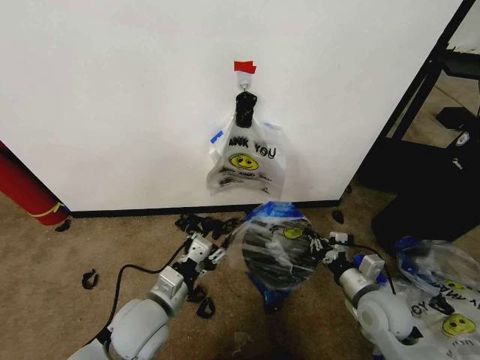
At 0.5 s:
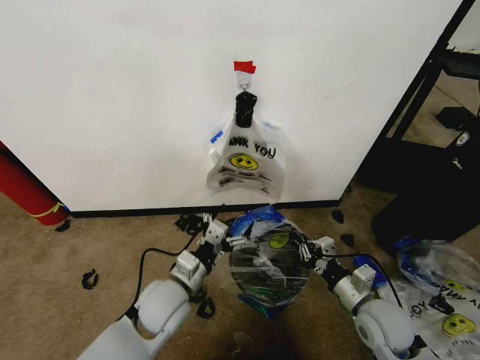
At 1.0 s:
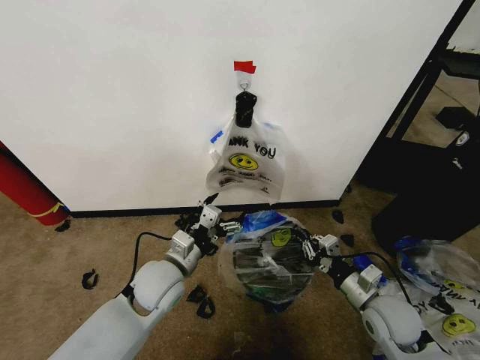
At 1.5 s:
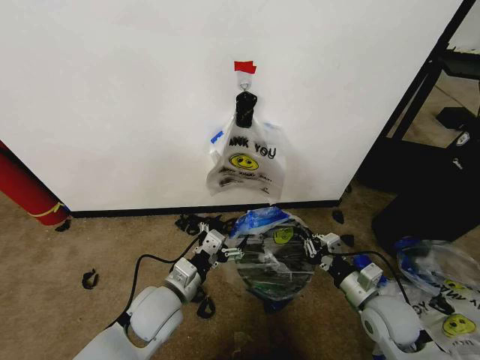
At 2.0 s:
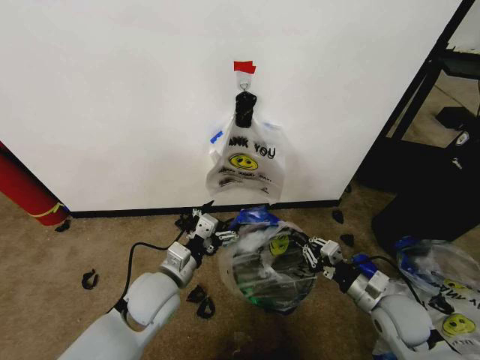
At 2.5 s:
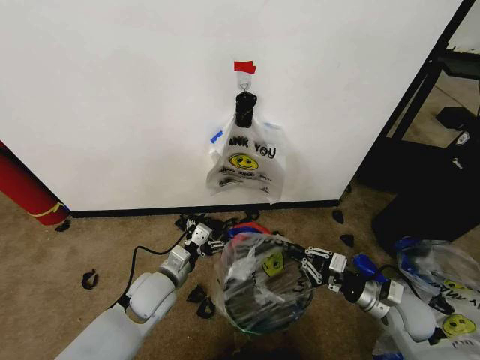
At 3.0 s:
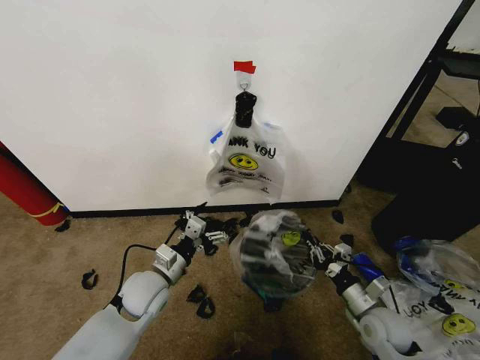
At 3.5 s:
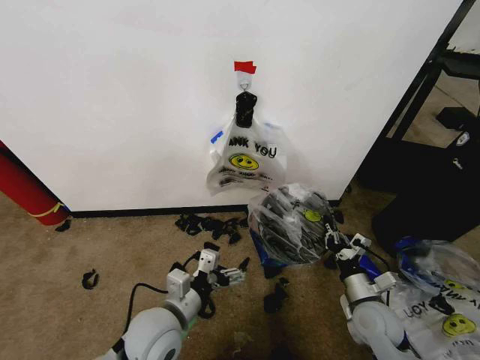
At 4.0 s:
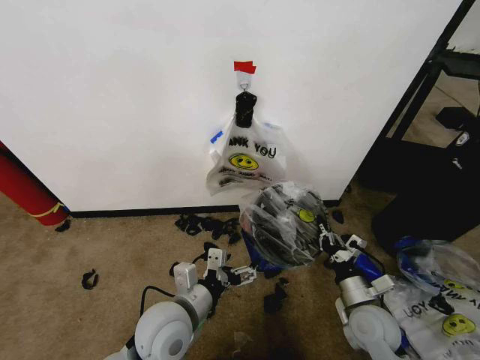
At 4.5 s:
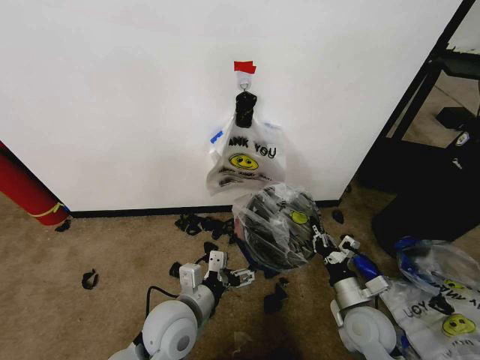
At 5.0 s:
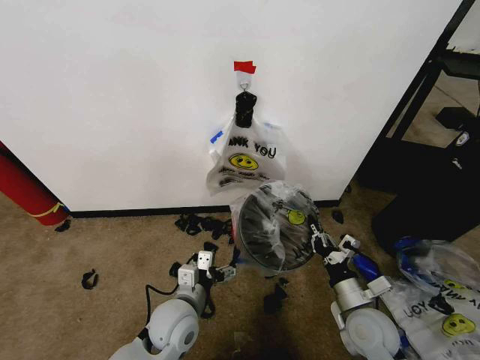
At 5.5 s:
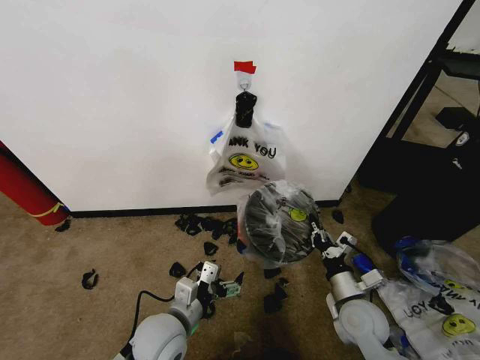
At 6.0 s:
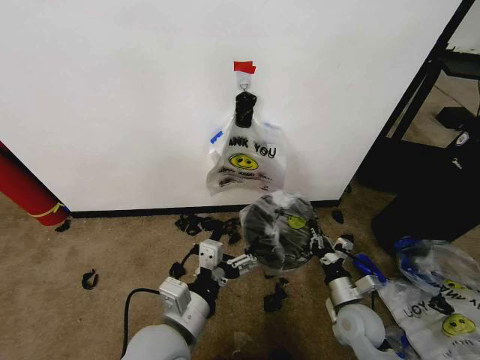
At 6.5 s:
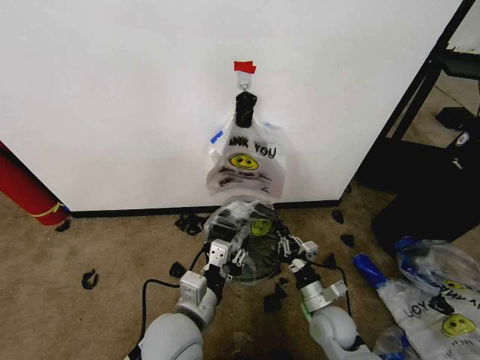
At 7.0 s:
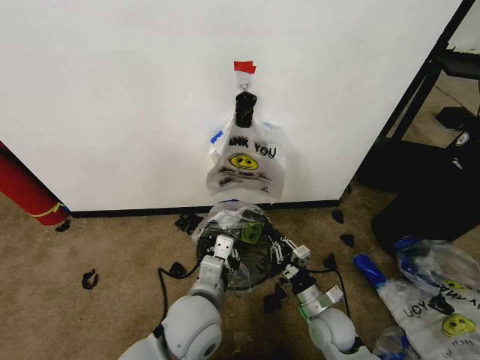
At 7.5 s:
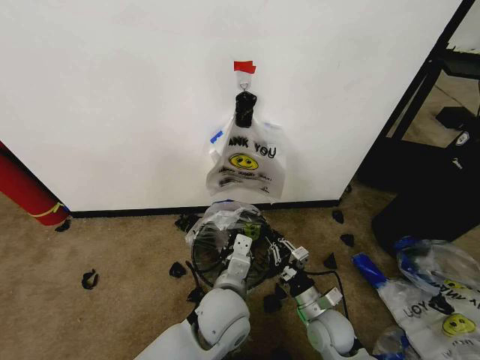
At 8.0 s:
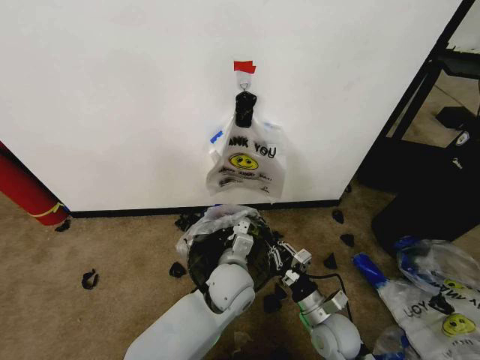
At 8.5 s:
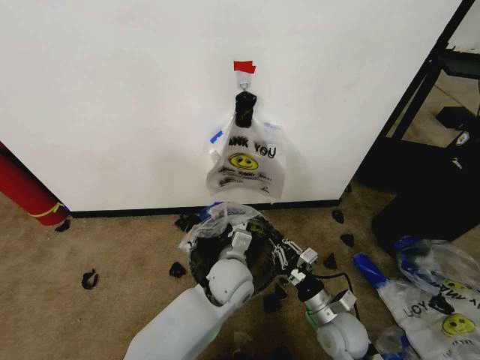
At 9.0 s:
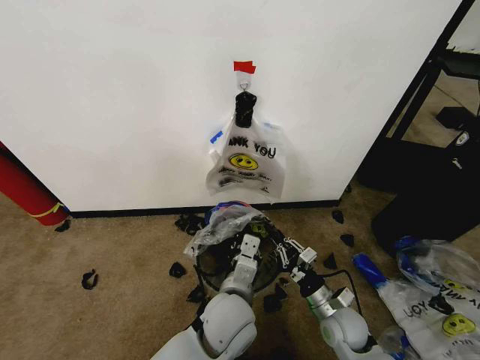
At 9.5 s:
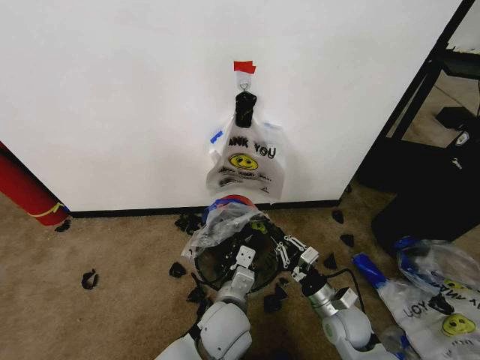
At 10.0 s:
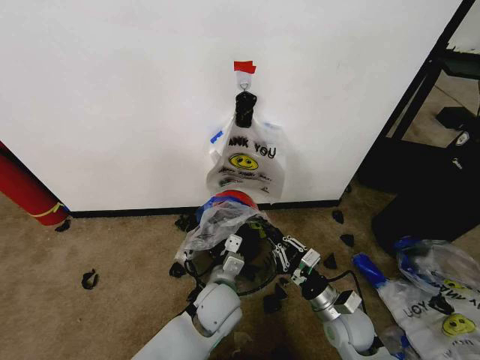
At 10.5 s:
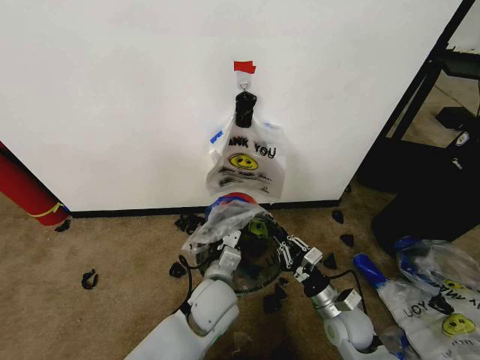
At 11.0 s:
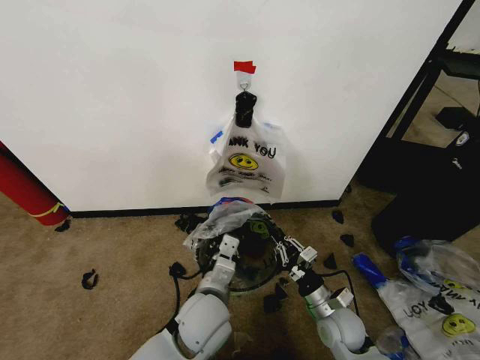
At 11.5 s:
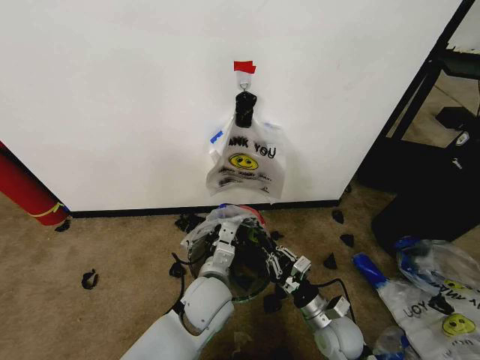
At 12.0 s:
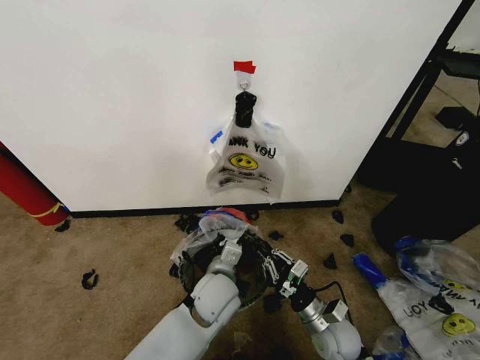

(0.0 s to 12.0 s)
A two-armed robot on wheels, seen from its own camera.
Task of the whole recording: Pick up the garbage bag from the wall and place it over the trash bin.
0.0 s - 2.0 s: The left gripper travels forward by about 5 cm, and opens up.
2.0 s - 4.0 s: The right gripper ends up about 5 cm from where it was. Meanwhile the left gripper goes approximately 5 cm backward.
4.0 s - 6.0 s: The left gripper ends up roughly 5 cm from where it was.
6.0 s - 8.0 s: The right gripper shifts approximately 5 cm to the left. Meanwhile the left gripper shifts about 20 cm forward, to the right and downward, and closes up.
8.0 s - 10.0 s: The left gripper moves roughly 5 cm backward and comes back.

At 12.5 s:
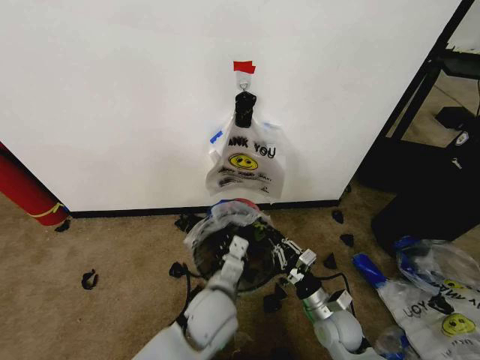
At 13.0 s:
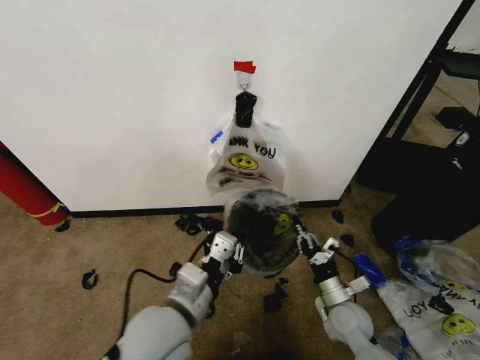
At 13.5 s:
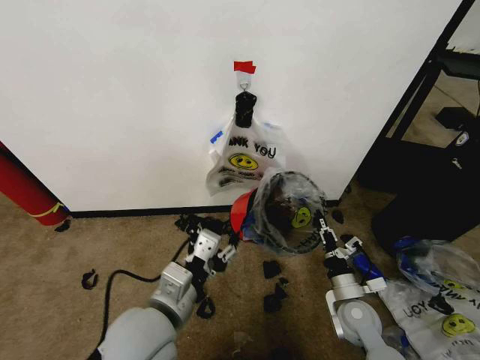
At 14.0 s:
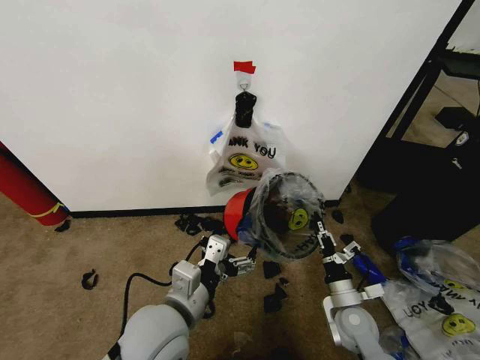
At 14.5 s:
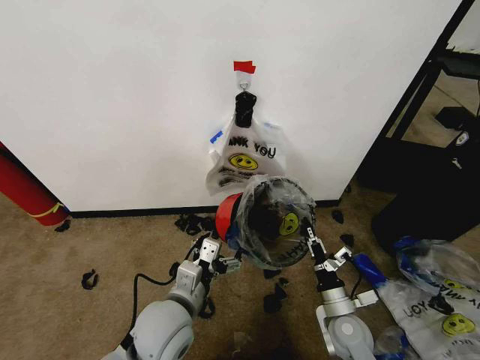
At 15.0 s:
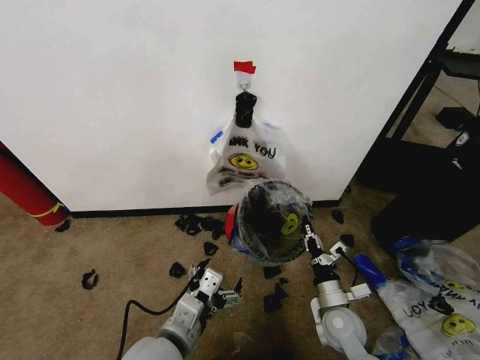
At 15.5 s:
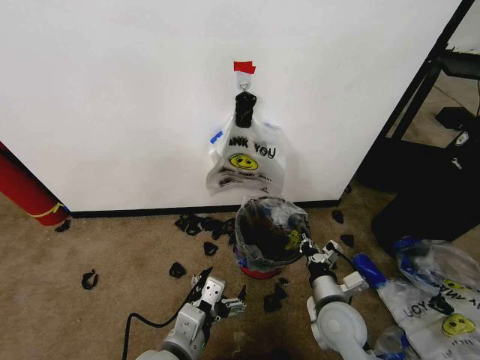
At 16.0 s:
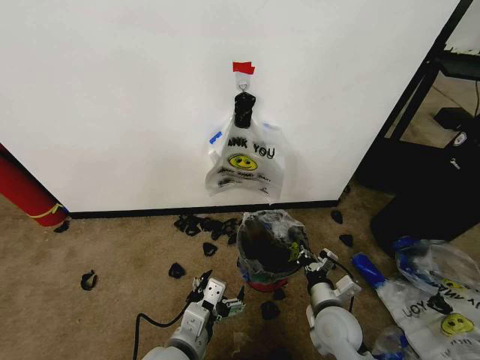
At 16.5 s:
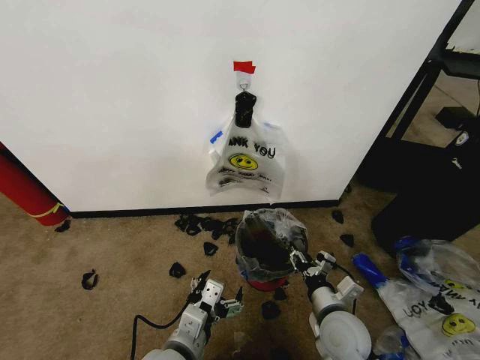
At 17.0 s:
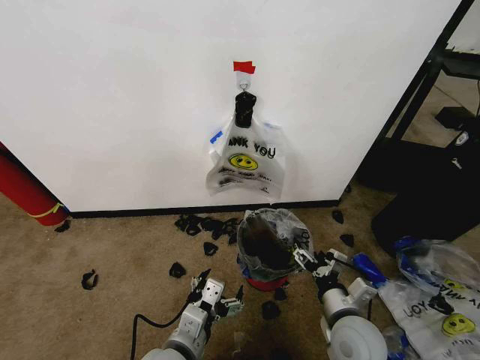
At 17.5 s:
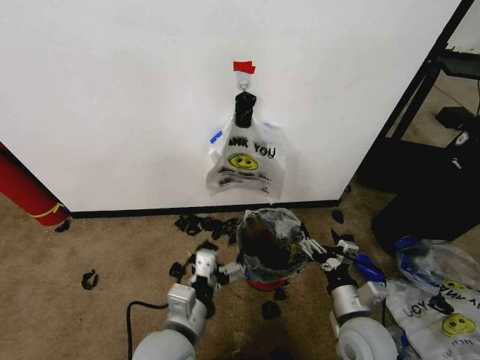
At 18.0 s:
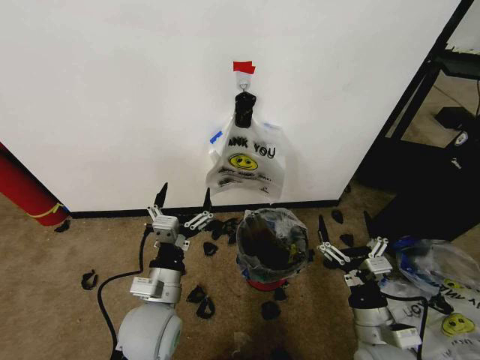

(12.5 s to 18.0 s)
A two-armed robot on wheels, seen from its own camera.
Task of the whole recording: Pick up the garbage bag from the wall and place it over the trash bin.
12.5 s - 14.5 s: The left gripper heads to the left, covering about 10 cm, and opens.
14.5 s - 16.0 s: The left gripper goes some 5 cm backward.
16.0 s - 18.0 s: The right gripper goes about 10 cm backward, to the right and upward, and opens. The left gripper heads forward, covering some 5 cm.

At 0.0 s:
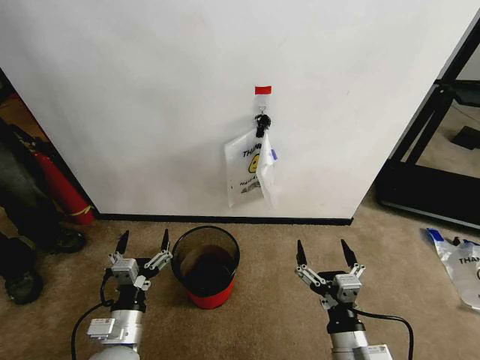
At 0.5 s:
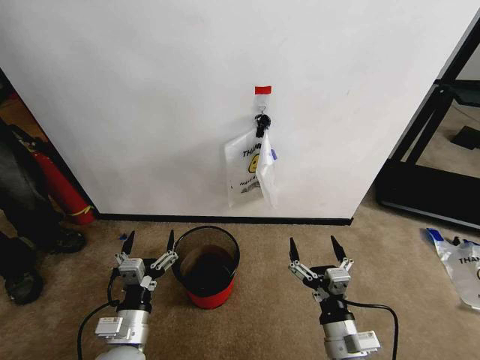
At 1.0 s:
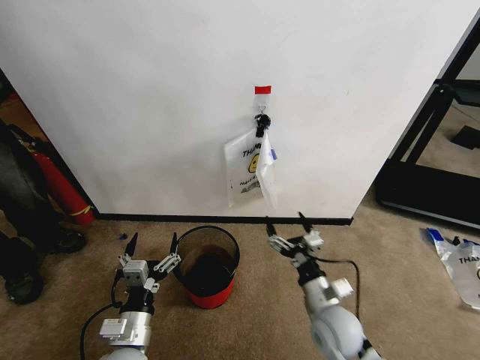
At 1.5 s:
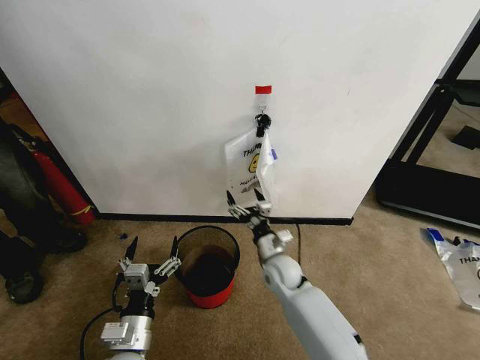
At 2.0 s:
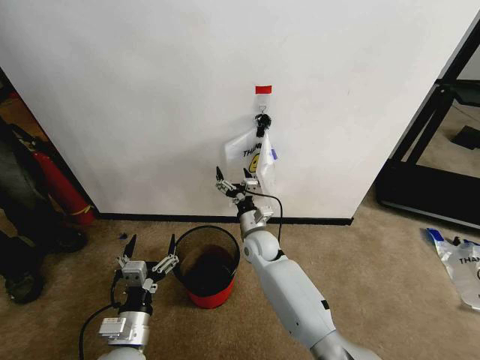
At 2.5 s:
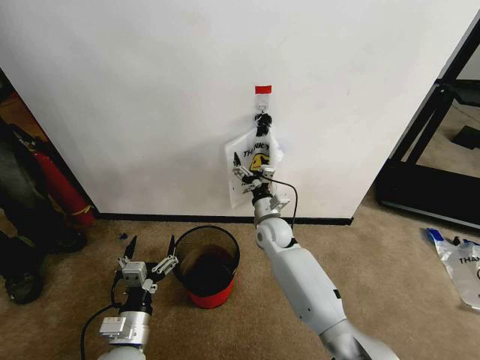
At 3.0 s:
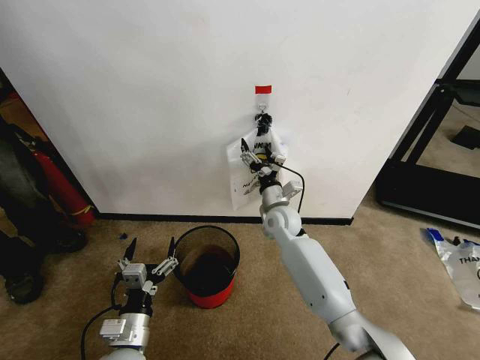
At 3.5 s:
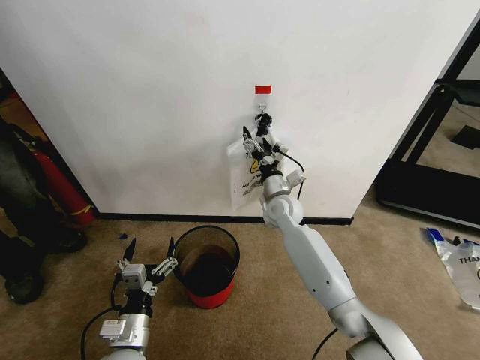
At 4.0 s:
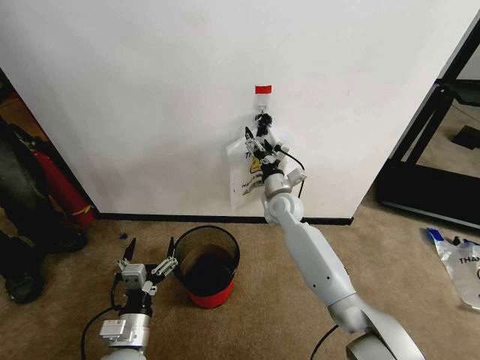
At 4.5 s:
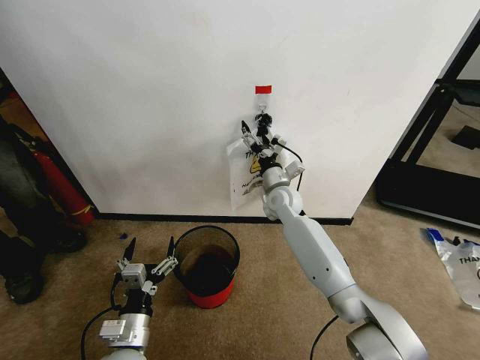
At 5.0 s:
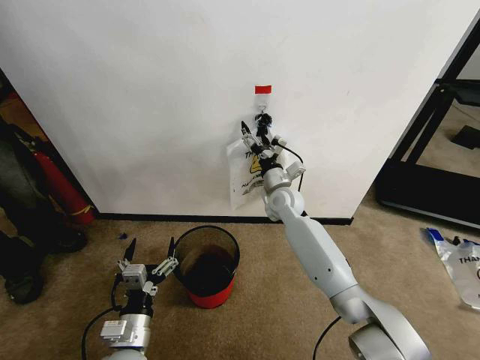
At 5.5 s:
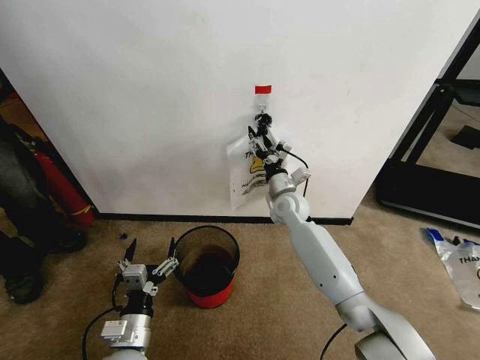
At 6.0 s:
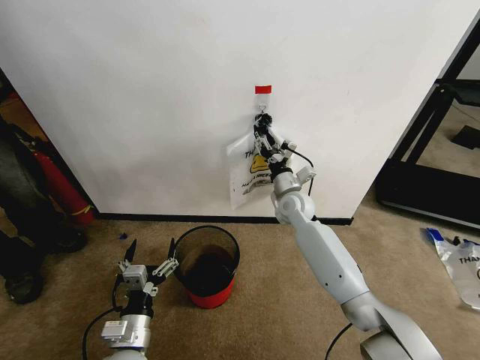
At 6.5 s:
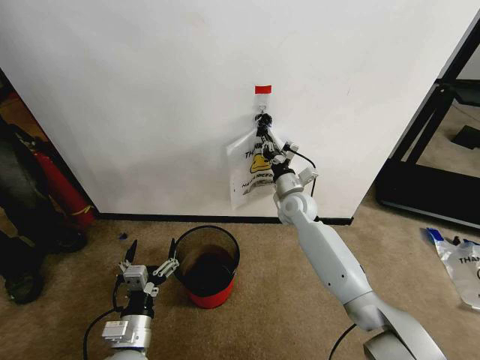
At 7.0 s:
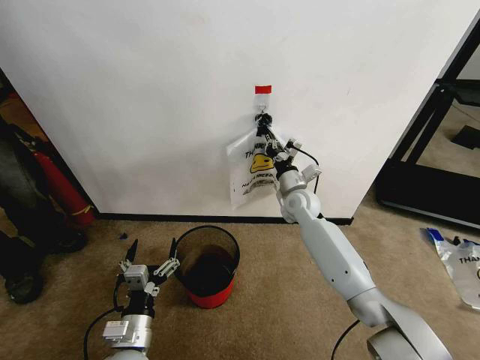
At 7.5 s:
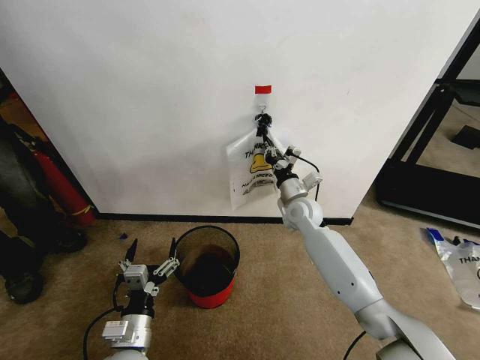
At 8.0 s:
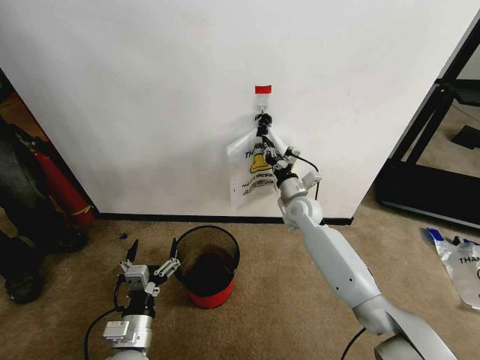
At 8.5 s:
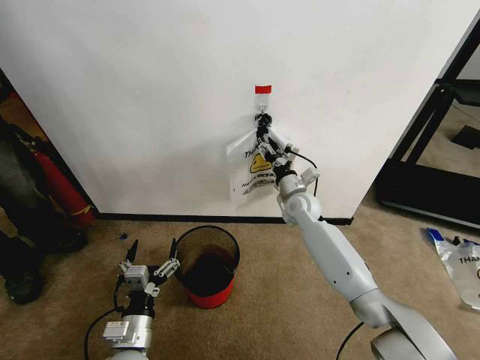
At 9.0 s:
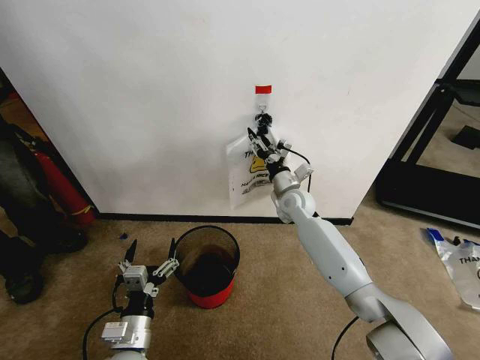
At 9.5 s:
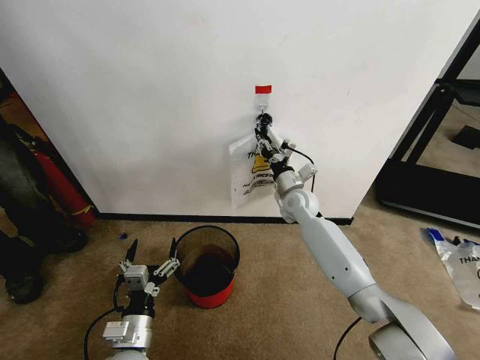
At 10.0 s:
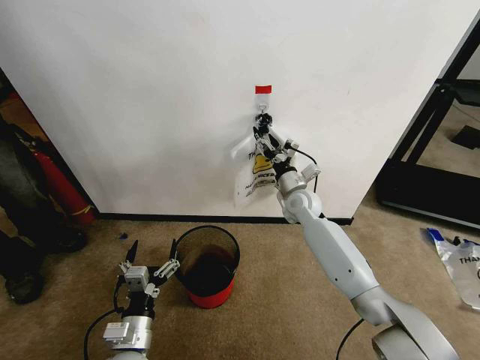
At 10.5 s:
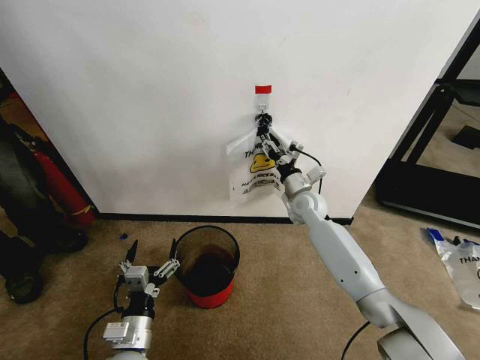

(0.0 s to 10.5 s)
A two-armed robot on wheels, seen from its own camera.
Task of the whole recording: Pick up the garbage bag from the wall and place it over the trash bin.
2.0 s - 4.0 s: The right gripper travels upward, forward and to the right by approximately 15 cm.
4.0 s - 6.5 s: The right gripper closes its fingers.
6.5 s - 8.5 s: The right gripper opens its fingers.
8.5 s - 10.5 s: The grippers stay close to where they were, moving slightly.
